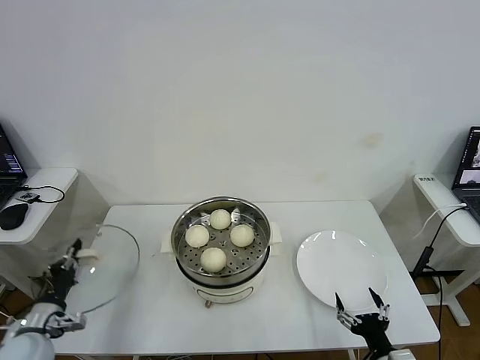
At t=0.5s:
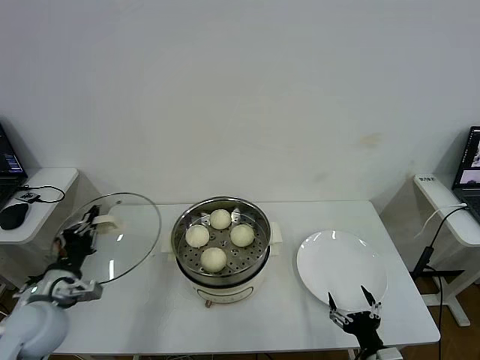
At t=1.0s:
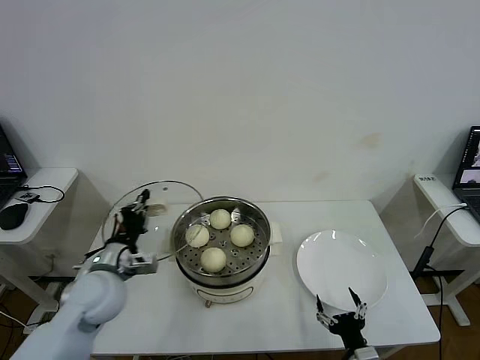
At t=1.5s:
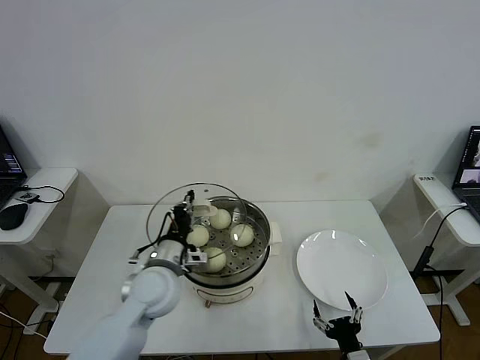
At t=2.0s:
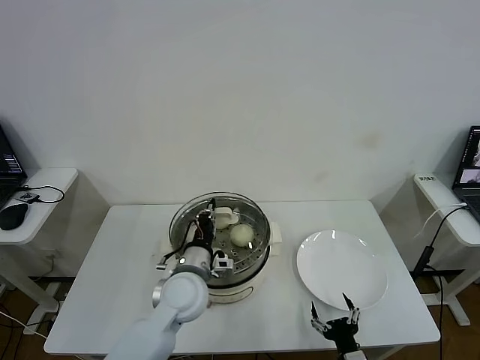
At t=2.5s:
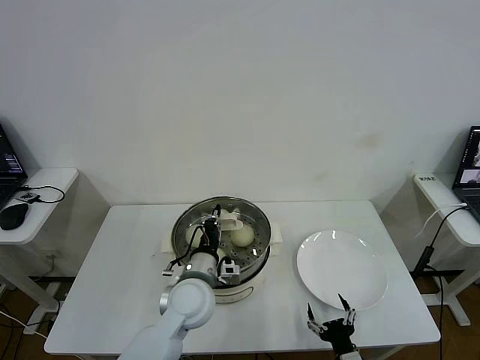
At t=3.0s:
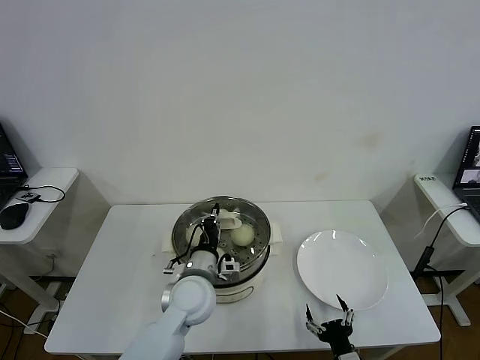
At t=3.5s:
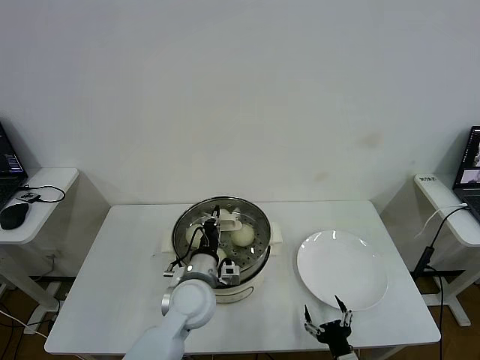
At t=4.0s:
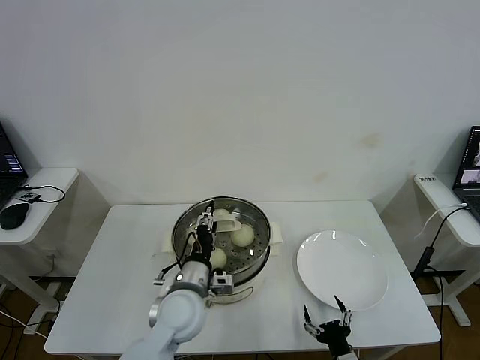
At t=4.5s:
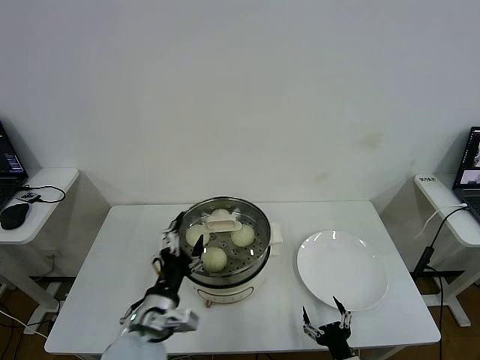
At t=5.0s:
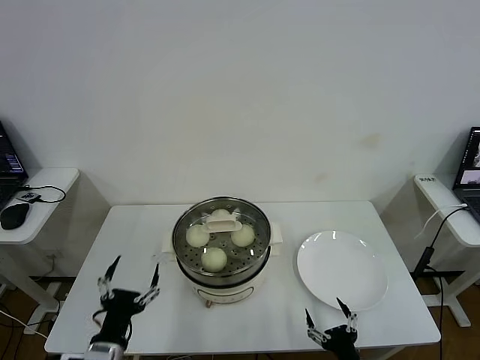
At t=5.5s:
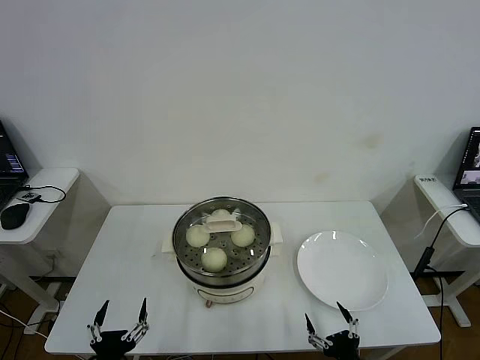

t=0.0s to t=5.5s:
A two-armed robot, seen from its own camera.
Step, t=0.0s to t=4.0s: Place the pot lid on the steamer with left gripper.
t=0.0s to t=2.0s: The left gripper moves to the right, approximately 30 cm, while the right gripper heads to the left, covering approximately 5 cm.
t=2.0s to t=3.5s: The grippers stay close to where they were, moving slightly.
t=3.5s to t=5.5s: The left gripper moves backward and to the left, about 30 cm, and opens. The right gripper moves some 5 cm.
